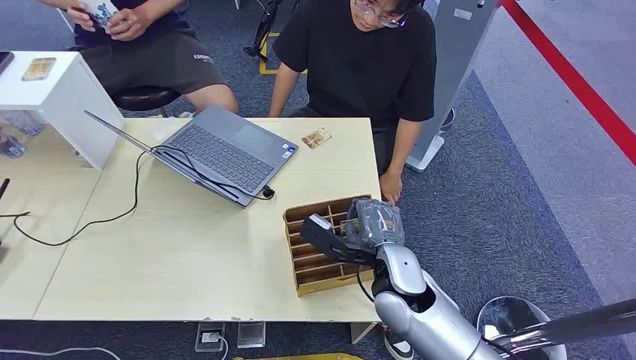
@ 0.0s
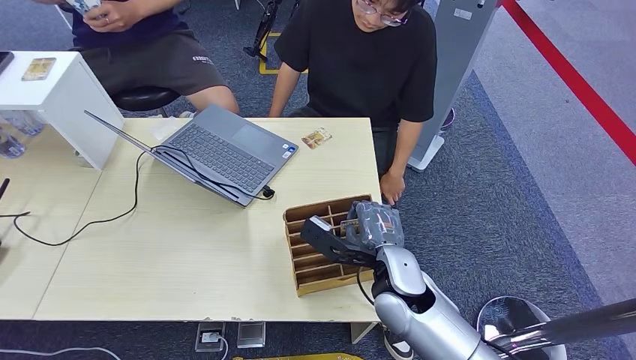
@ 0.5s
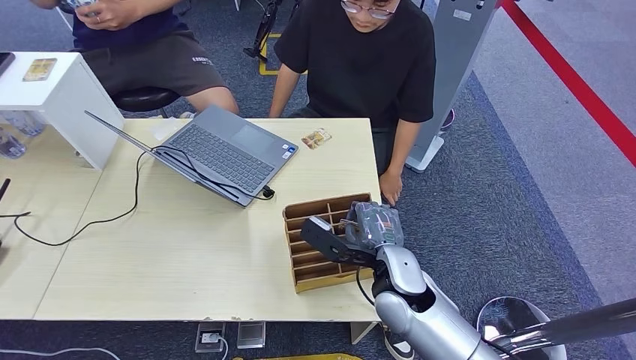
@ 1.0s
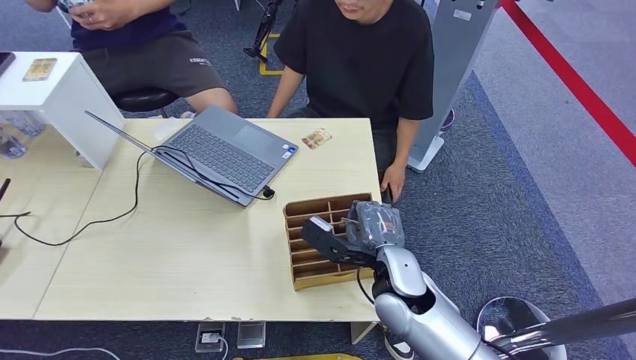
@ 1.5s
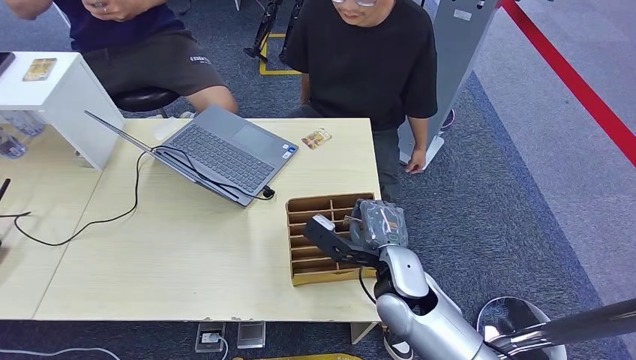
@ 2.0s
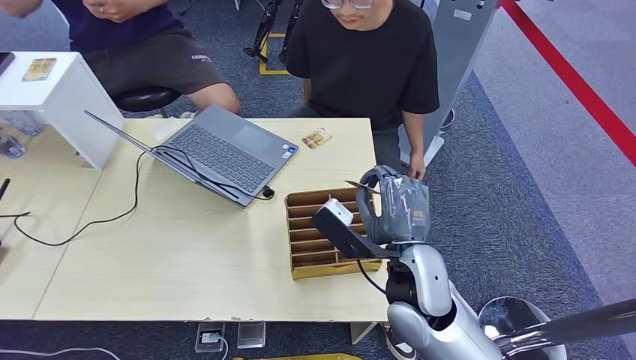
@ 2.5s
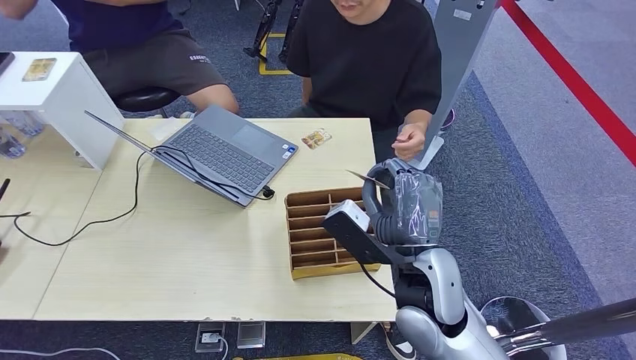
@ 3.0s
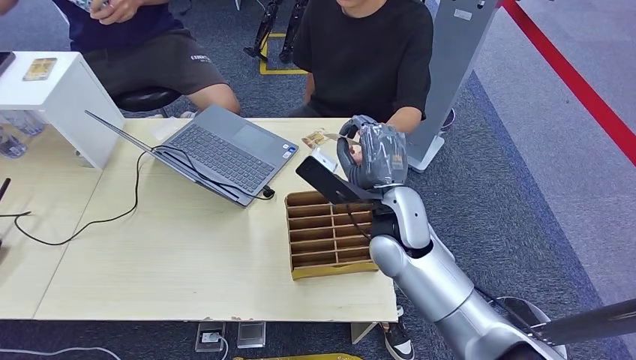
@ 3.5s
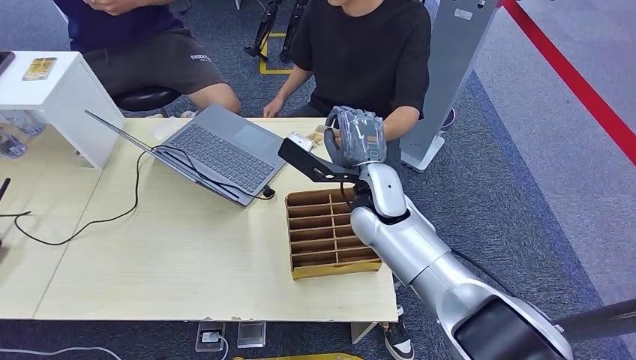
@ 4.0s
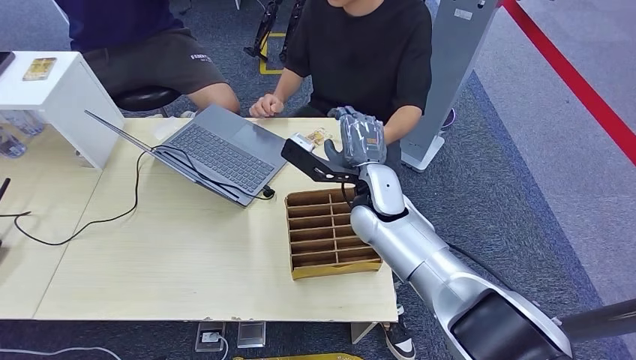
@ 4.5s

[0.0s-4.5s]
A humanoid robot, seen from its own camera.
Step, 0.0s to 2.0s: Pick up the room card from the card holder.
Step, 3.0s to 4.5s: Hand the room card to the target.
2.0s to 4.5s: The right hand goes some 15 cm forward and upward.
